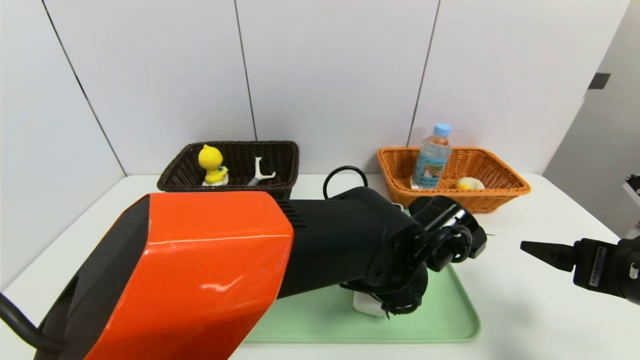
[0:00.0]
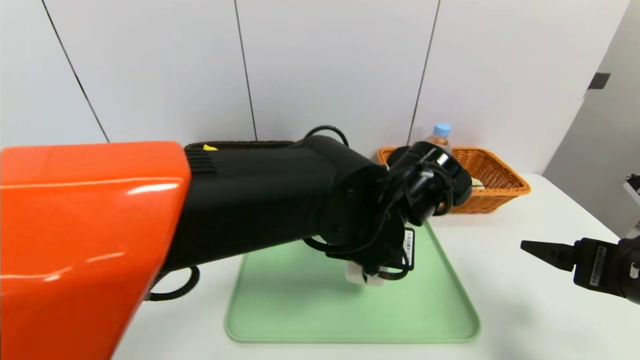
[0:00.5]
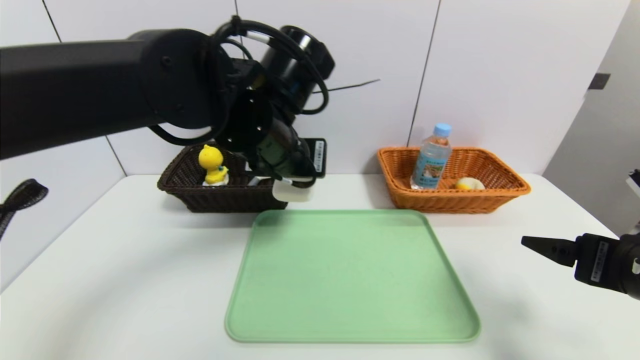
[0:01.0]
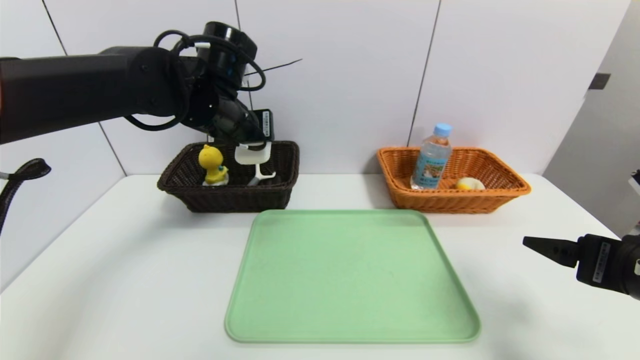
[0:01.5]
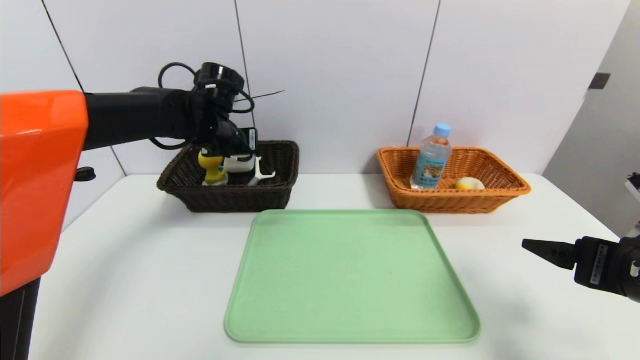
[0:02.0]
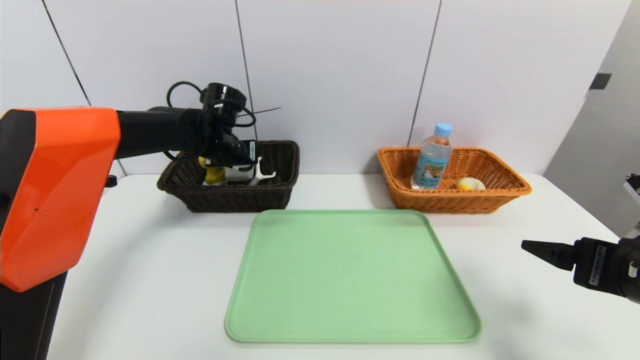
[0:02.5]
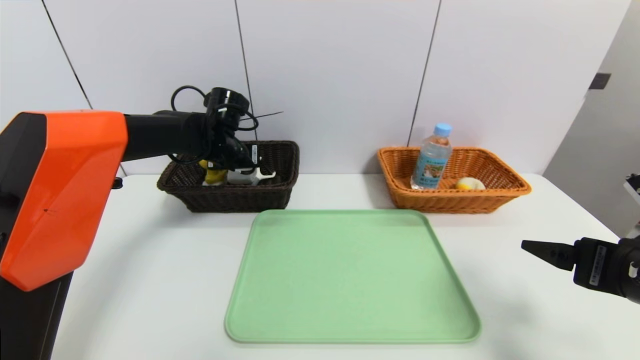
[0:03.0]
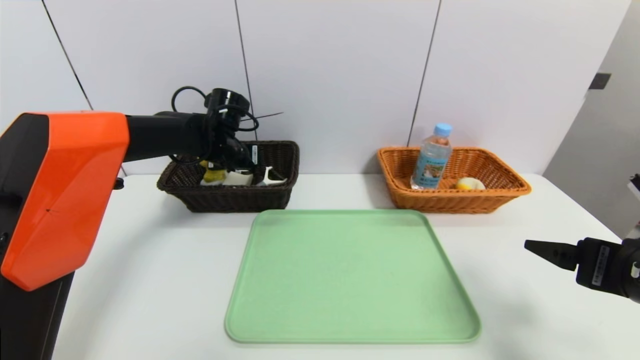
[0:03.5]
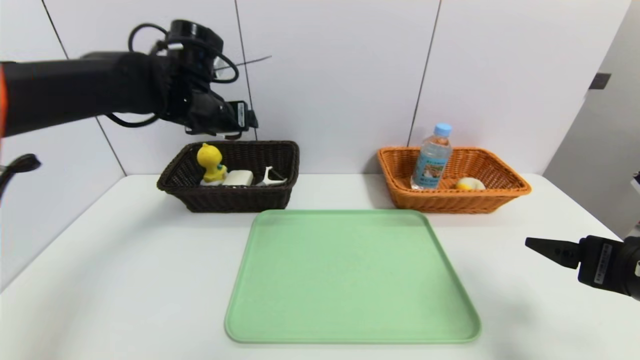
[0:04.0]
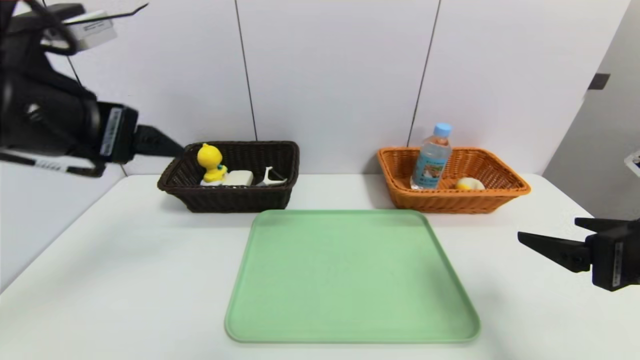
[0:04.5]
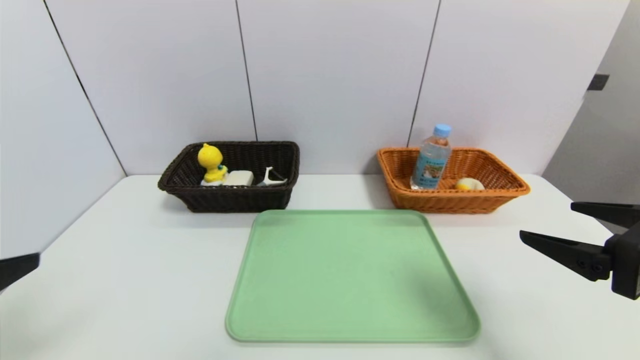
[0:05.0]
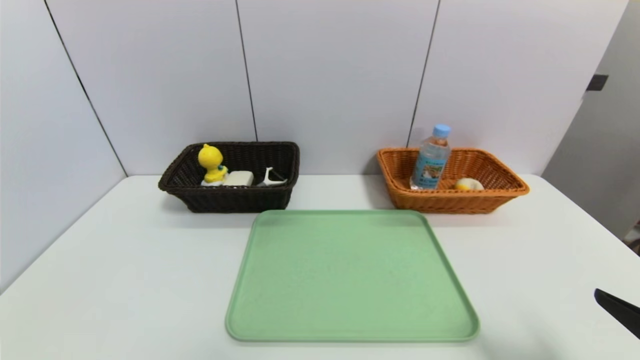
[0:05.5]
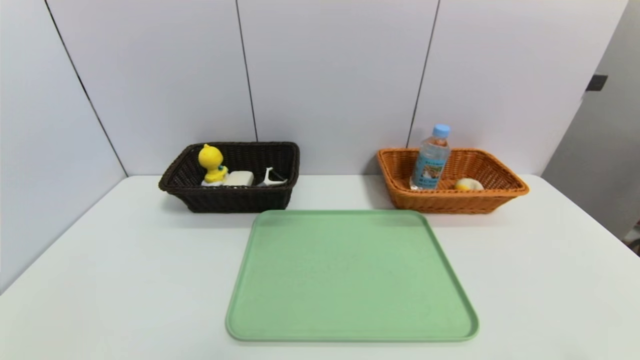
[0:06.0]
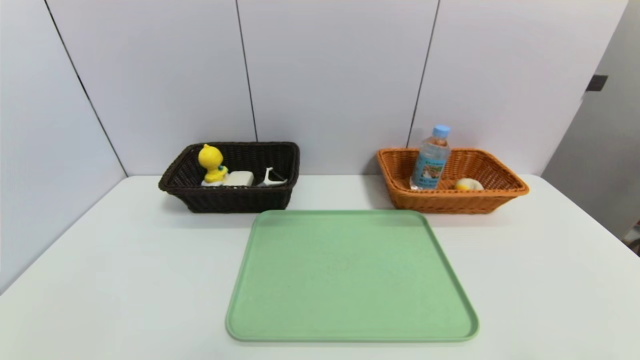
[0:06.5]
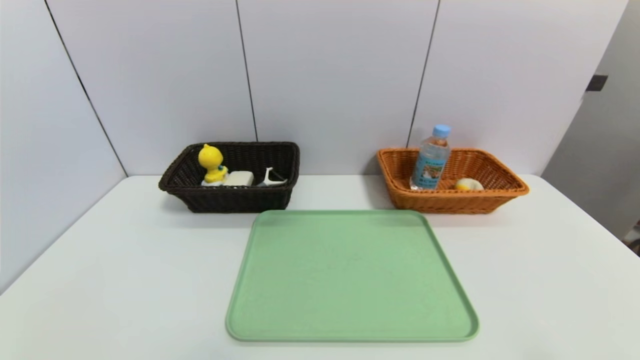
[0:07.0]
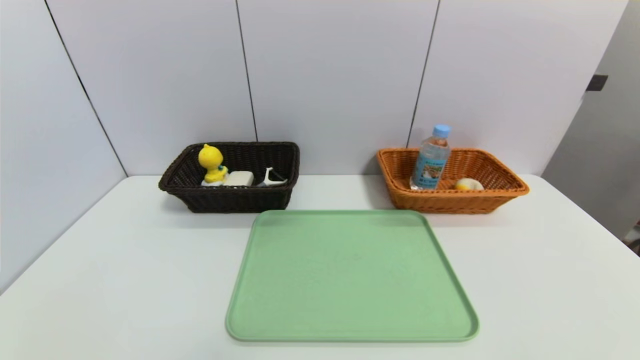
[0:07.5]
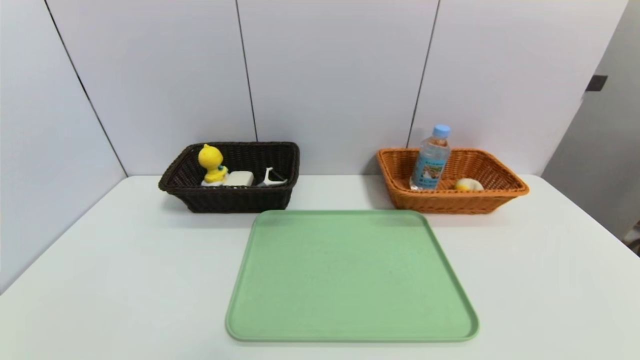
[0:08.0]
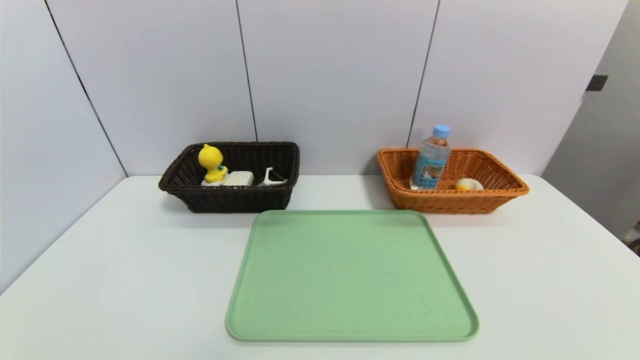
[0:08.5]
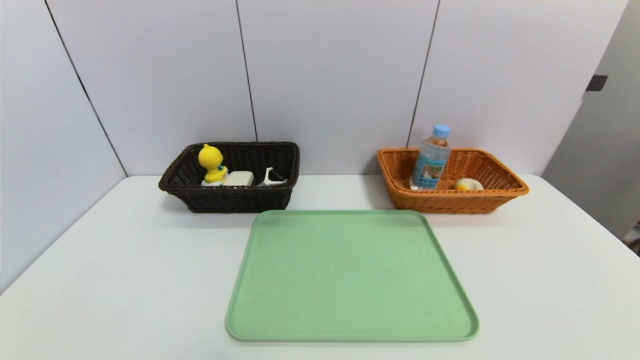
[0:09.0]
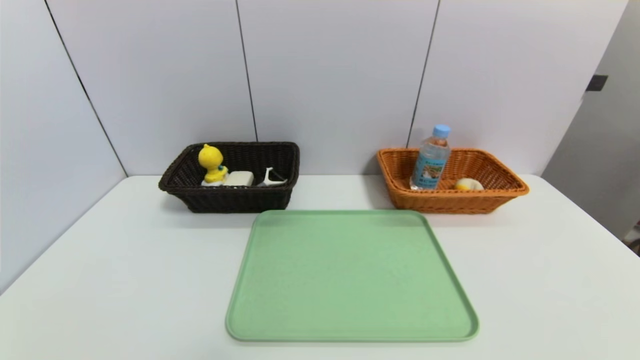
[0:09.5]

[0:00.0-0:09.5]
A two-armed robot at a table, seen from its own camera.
Task of the whole recording: place the food in the right basket with the right gripper, and place the non food items in the left basket with the left gripper.
Step, 0:00.0 to 0:03.5: Grasp the soap and put it in the left basket.
0:00.0 to 0:02.0: The left gripper travels to the left and forward by some 30 cm.
0:02.0 to 0:04.0: The left gripper moves upward, some 5 cm, and opens.
0:04.0 to 0:05.5: The right gripper is displaced backward by roughly 10 cm; the left gripper heads backward, covering some 40 cm.
0:05.5 to 0:07.5: The right gripper moves backward, roughly 5 cm.
